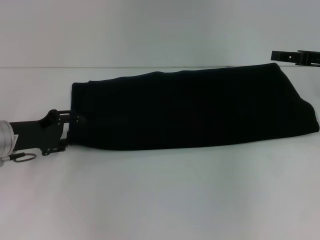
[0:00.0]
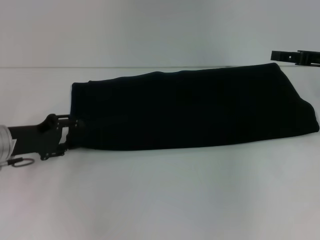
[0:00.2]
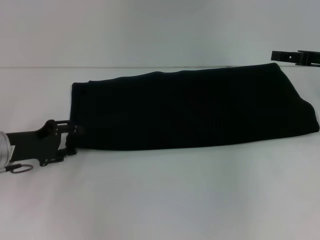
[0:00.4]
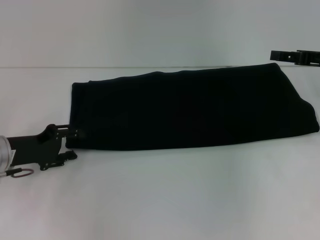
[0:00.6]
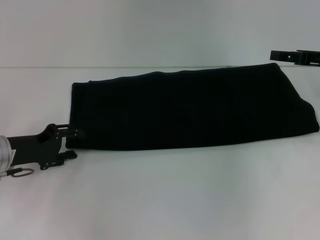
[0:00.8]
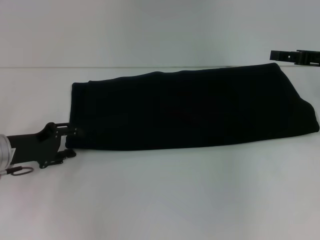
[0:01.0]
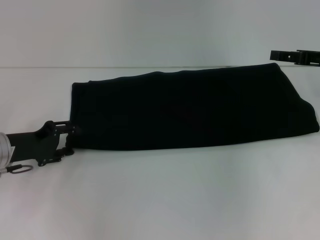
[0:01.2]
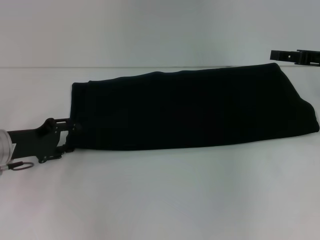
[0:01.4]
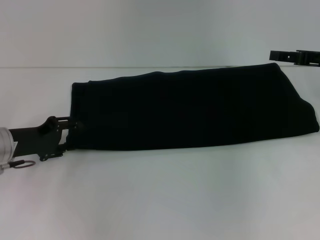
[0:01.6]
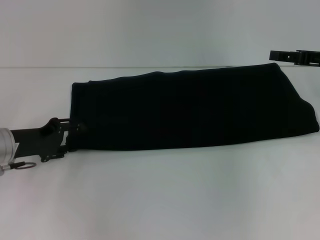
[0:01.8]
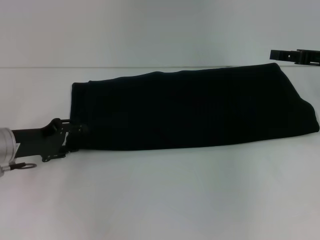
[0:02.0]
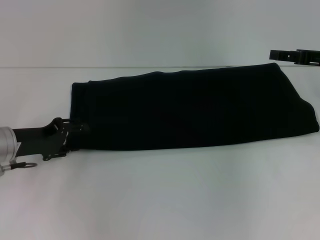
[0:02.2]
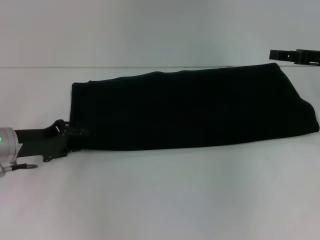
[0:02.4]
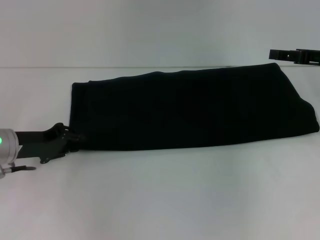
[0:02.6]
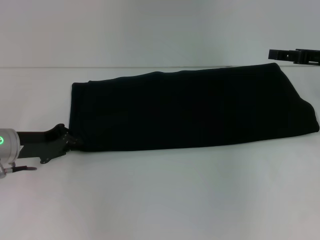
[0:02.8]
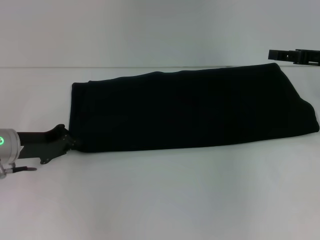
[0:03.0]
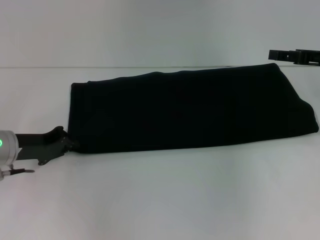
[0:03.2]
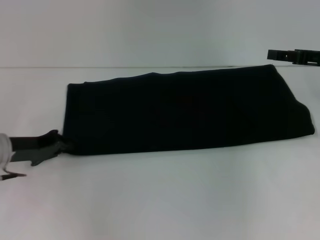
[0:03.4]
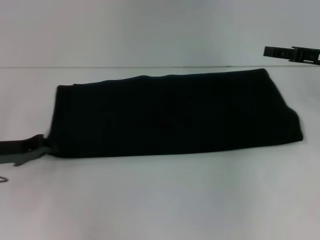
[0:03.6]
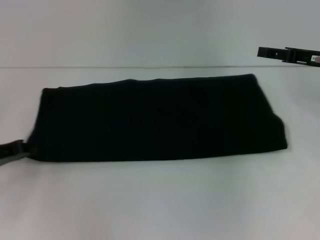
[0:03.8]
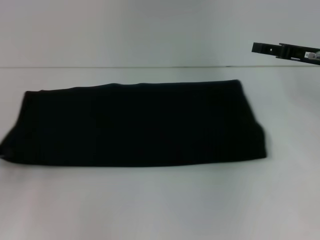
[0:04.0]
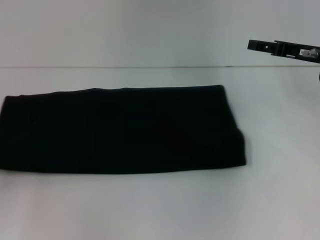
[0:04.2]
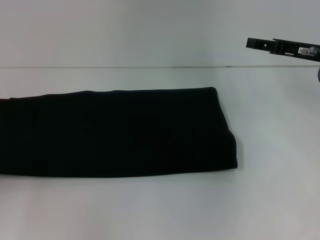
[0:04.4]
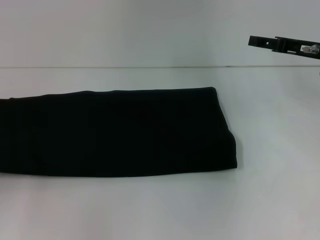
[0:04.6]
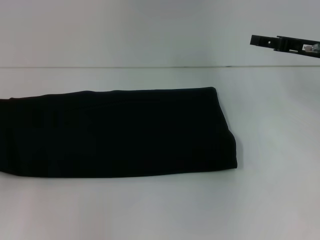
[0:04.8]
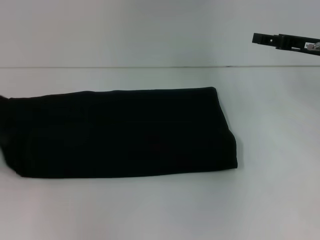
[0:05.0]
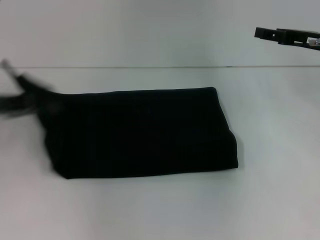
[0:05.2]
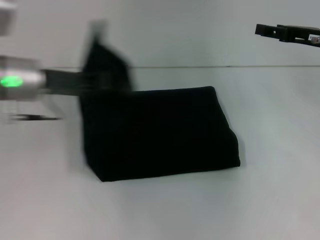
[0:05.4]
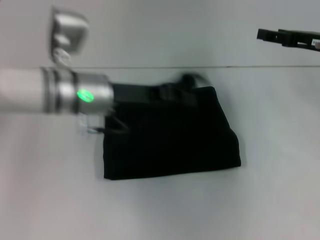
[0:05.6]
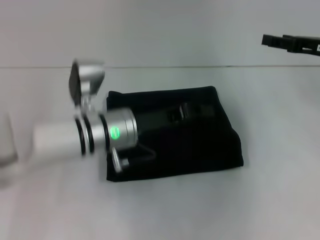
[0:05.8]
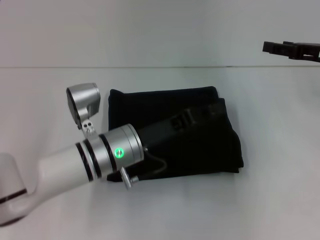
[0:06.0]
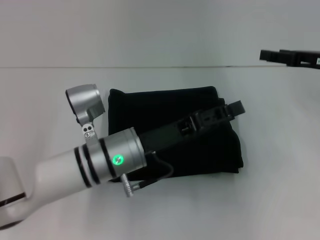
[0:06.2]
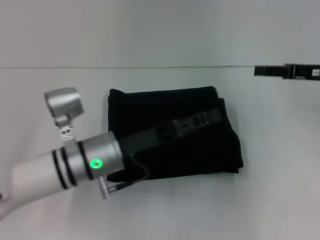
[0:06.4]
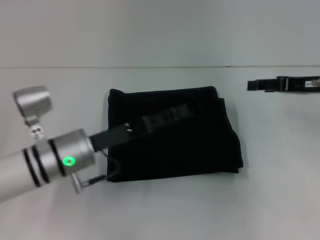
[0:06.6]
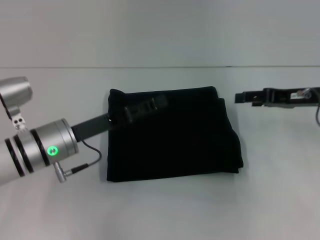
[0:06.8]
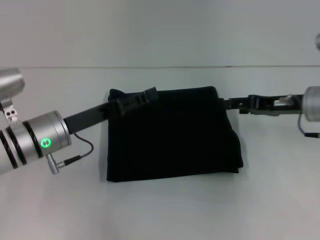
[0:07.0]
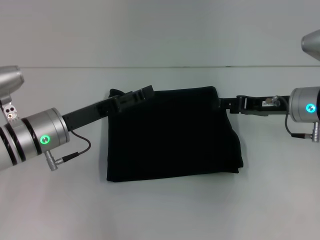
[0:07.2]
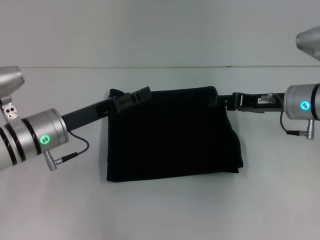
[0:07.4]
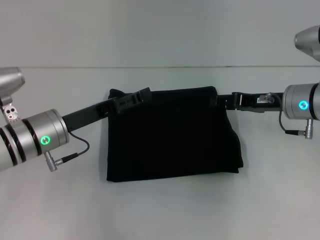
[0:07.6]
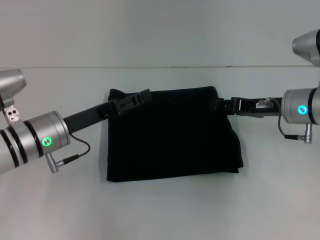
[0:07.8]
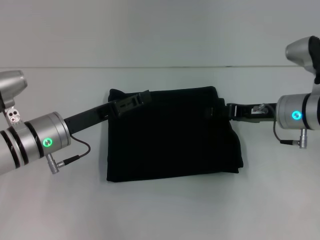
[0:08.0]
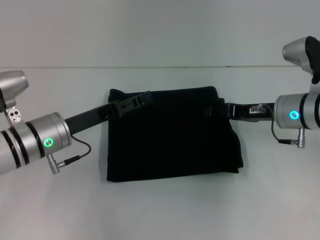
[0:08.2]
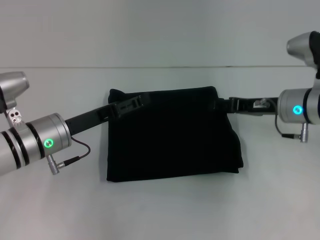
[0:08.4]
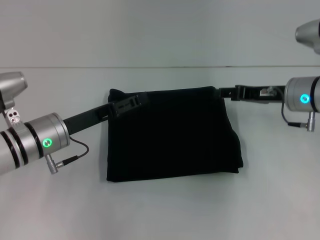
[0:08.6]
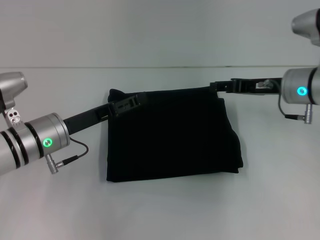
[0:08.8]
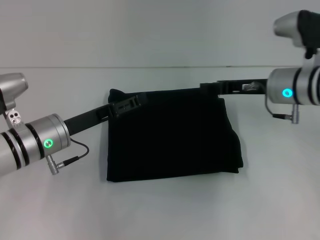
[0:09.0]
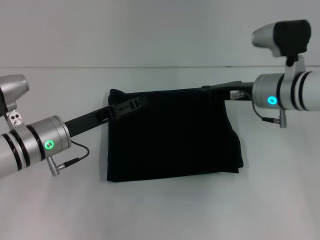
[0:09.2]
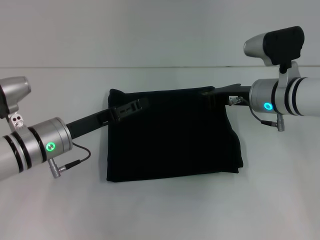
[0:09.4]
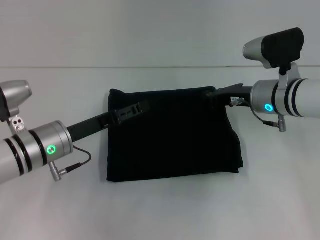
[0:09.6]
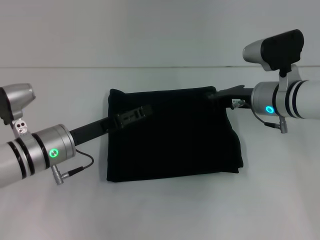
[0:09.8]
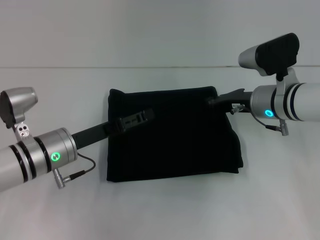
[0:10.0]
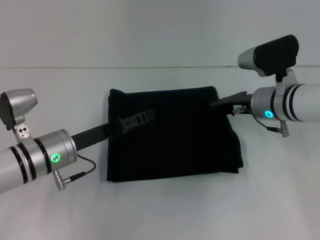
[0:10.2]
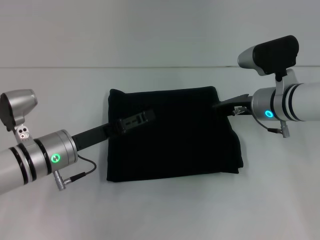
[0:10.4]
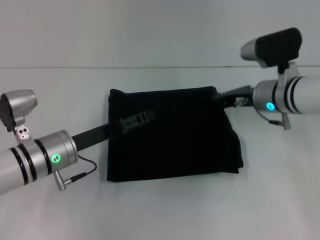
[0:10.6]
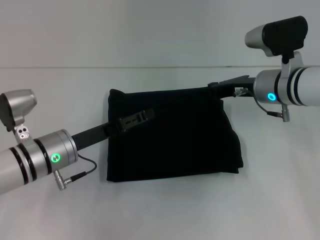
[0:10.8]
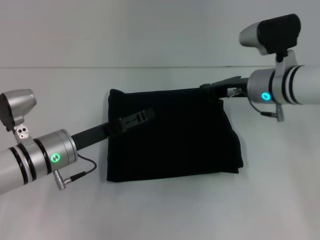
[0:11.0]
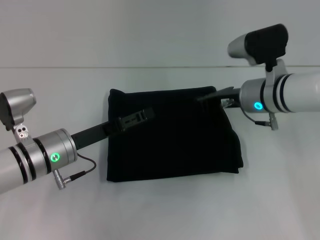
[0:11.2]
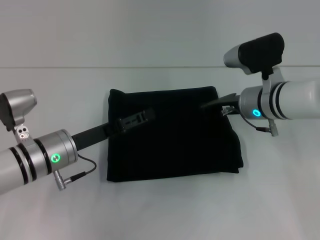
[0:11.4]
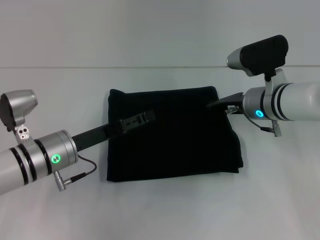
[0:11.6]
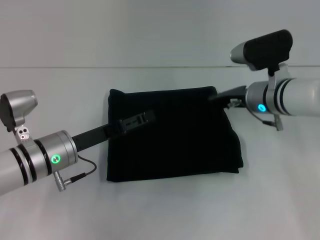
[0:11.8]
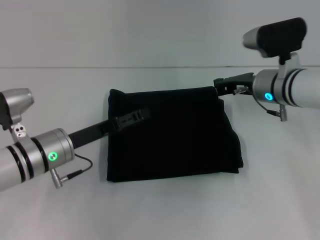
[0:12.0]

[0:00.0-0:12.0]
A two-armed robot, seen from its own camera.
Step, 0:00.0 to 0:05.8: Fold the clothes with your left hand.
0:00.0 to 0:01.6: The grippers move only a little.
0:01.6 to 0:03.0: The left gripper closes up.
0:03.0 to 0:04.4: The left gripper goes about 15 cm to the left and backward.
0:04.4 to 0:06.0: The left gripper is displaced to the right by about 30 cm.
0:06.0 to 0:07.6: The right gripper goes about 10 cm to the left and downward. Meanwhile the left gripper goes about 10 cm to the left, and opens its fingers.
0:07.6 to 0:09.0: The grippers move only a little.
0:09.0 to 0:10.4: The right gripper closes its fingers.
0:10.4 to 0:12.0: The grippers move only a little.

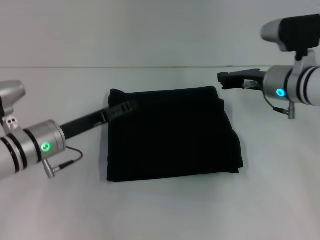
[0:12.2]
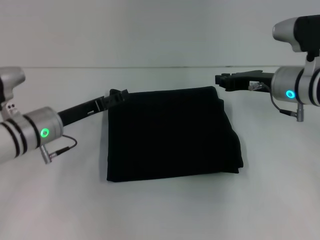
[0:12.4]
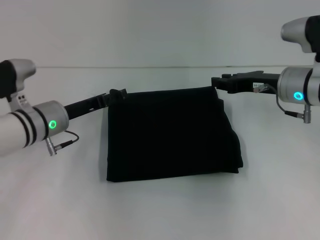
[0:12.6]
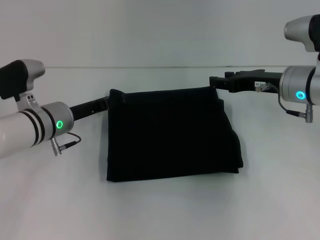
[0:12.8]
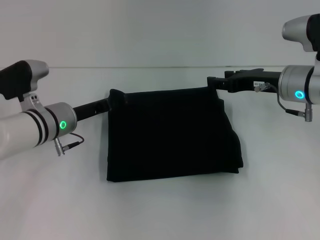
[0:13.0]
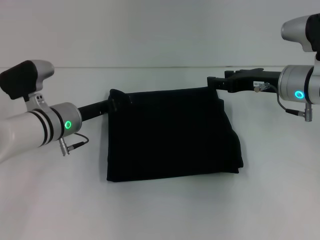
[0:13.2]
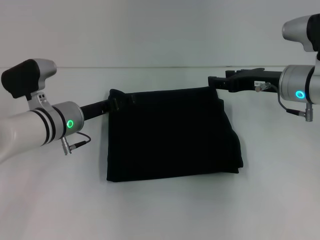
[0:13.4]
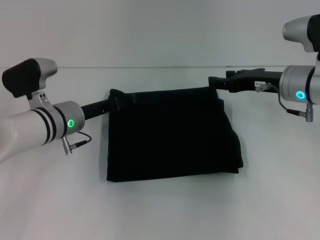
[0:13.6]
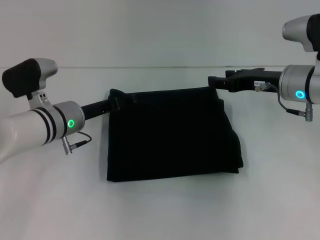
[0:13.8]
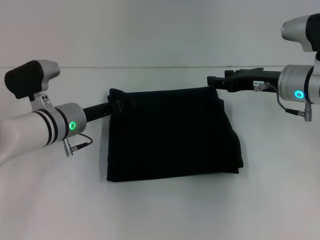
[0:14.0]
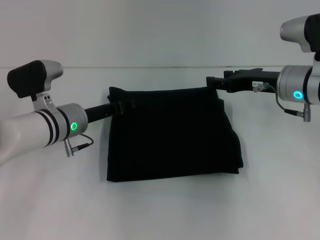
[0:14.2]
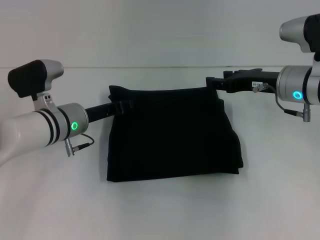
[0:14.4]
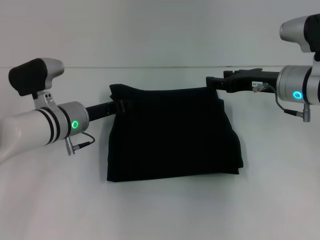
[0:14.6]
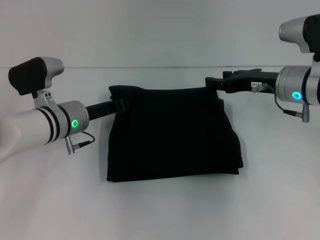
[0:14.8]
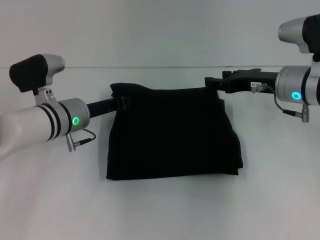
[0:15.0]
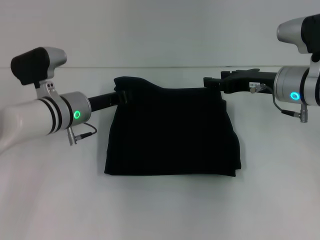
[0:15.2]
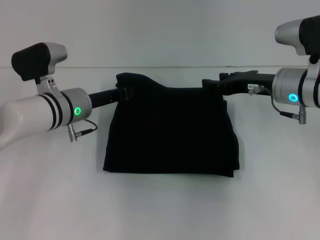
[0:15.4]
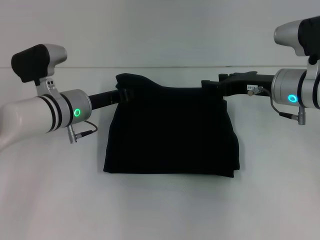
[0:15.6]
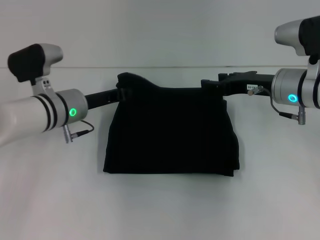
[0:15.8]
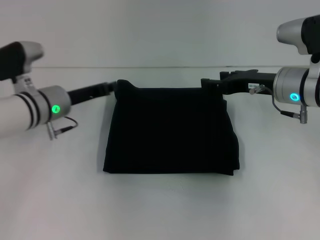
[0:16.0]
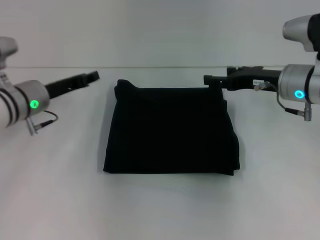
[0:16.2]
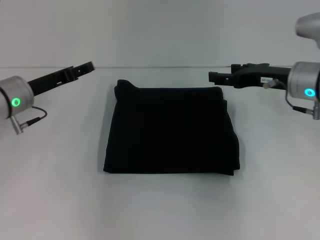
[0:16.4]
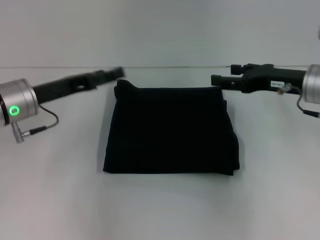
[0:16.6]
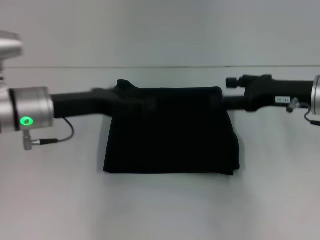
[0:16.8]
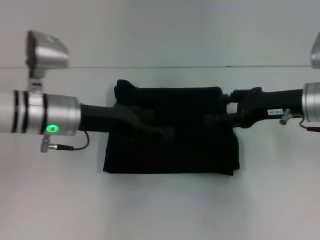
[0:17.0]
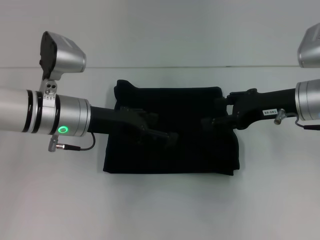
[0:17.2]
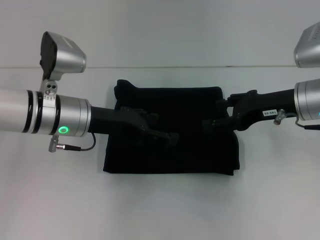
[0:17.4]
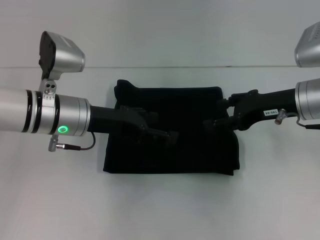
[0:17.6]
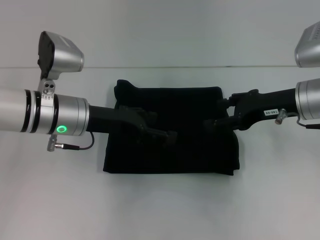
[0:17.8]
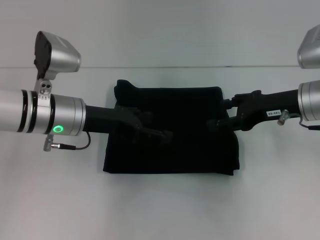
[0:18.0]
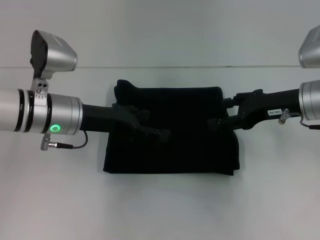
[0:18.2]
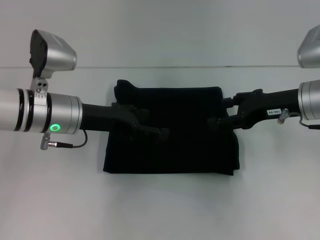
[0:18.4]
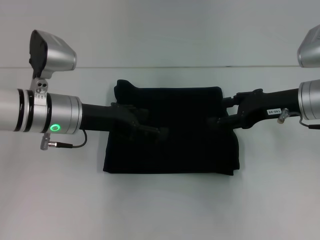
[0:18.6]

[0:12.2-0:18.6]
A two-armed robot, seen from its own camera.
0:12.2 to 0:13.8: The left gripper moves approximately 5 cm, while the right gripper opens up.
0:13.8 to 0:15.4: The left gripper closes its fingers.
0:15.4 to 0:17.0: The left gripper goes to the left and returns, about 10 cm each way, and opens up.
0:17.0 to 0:18.6: The grippers move only a little.
